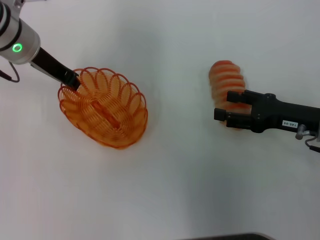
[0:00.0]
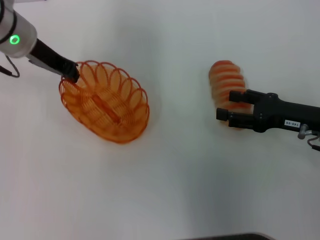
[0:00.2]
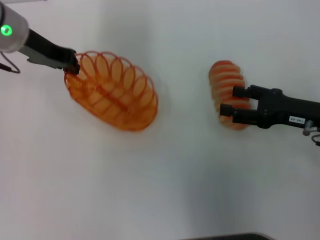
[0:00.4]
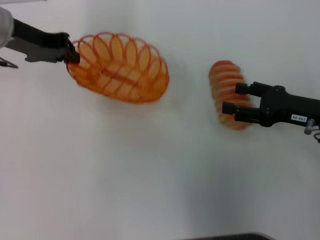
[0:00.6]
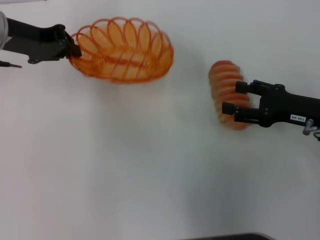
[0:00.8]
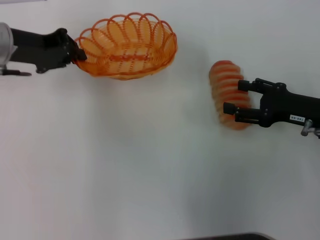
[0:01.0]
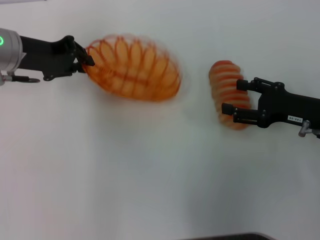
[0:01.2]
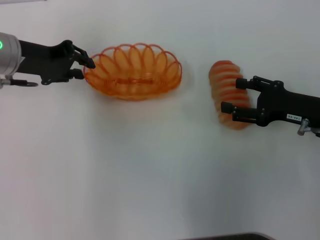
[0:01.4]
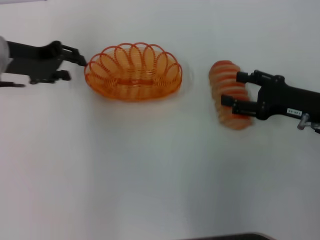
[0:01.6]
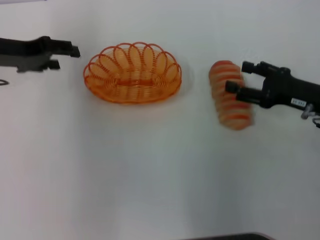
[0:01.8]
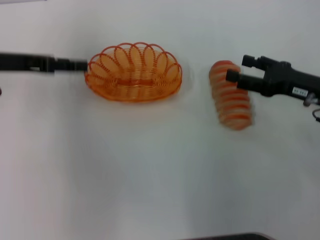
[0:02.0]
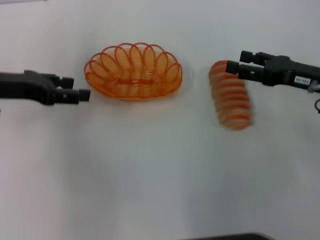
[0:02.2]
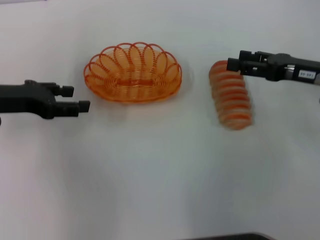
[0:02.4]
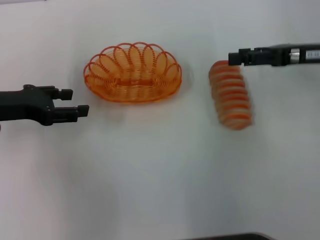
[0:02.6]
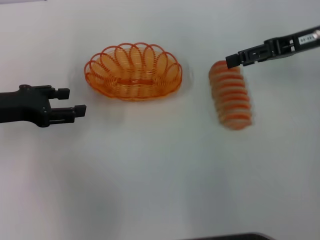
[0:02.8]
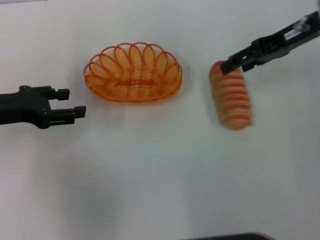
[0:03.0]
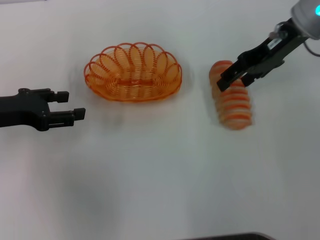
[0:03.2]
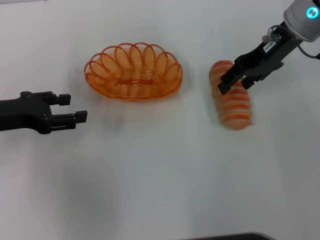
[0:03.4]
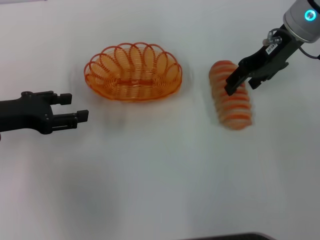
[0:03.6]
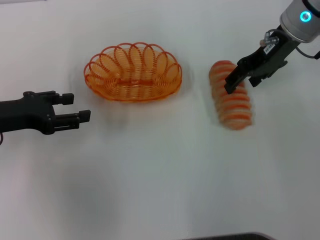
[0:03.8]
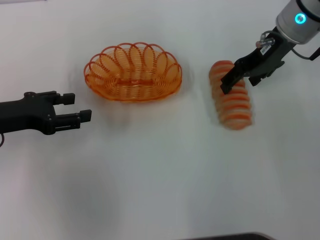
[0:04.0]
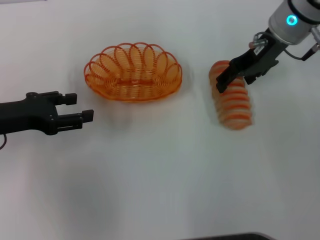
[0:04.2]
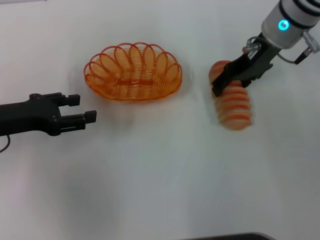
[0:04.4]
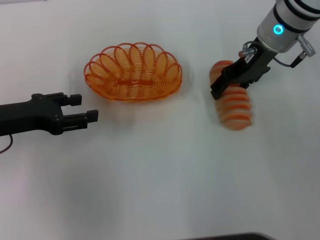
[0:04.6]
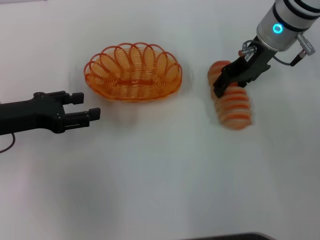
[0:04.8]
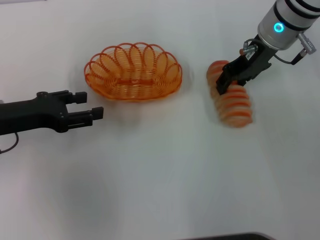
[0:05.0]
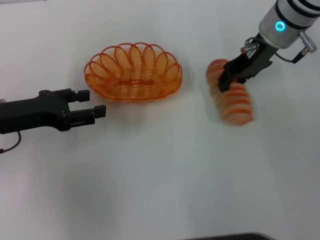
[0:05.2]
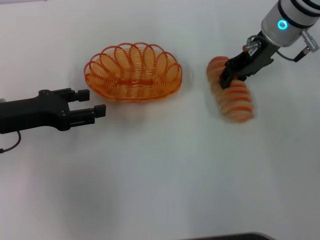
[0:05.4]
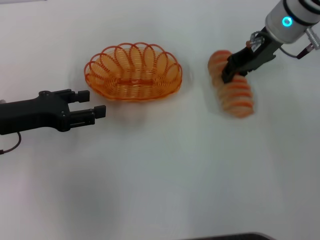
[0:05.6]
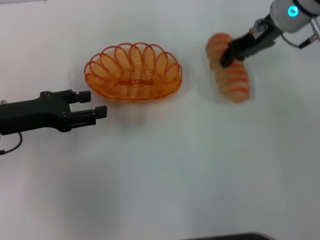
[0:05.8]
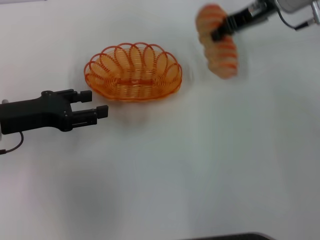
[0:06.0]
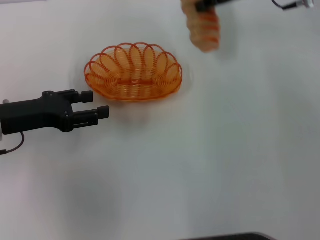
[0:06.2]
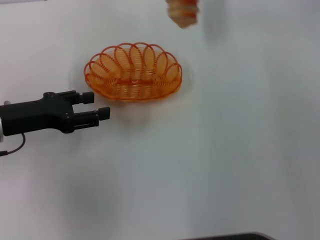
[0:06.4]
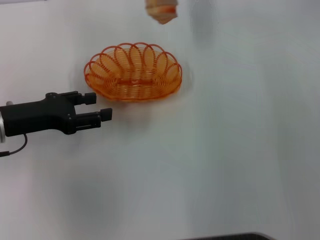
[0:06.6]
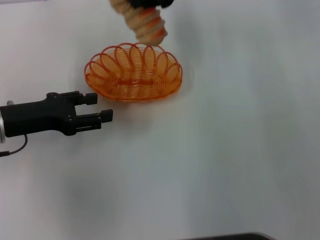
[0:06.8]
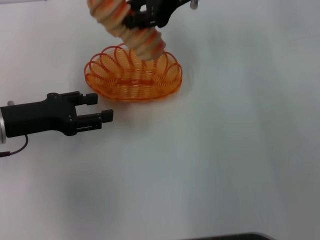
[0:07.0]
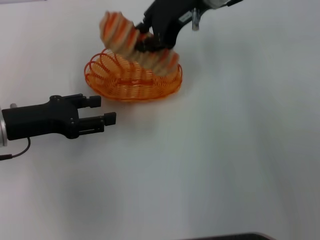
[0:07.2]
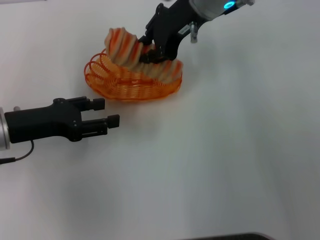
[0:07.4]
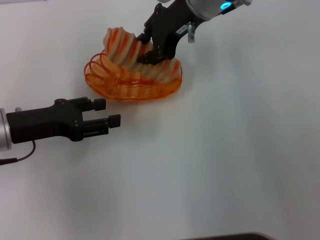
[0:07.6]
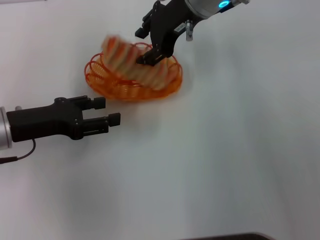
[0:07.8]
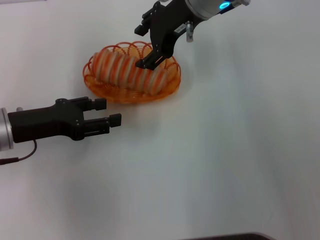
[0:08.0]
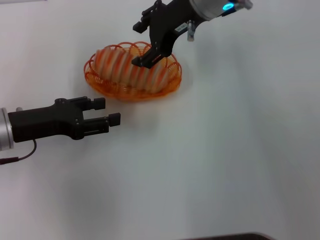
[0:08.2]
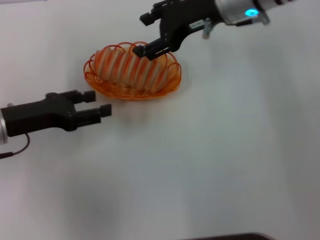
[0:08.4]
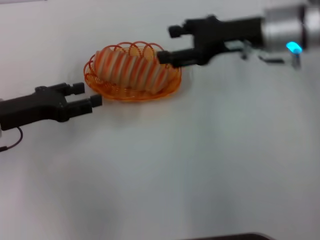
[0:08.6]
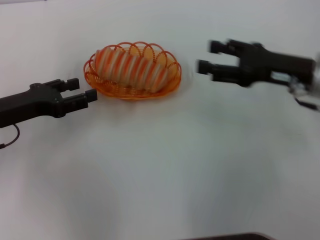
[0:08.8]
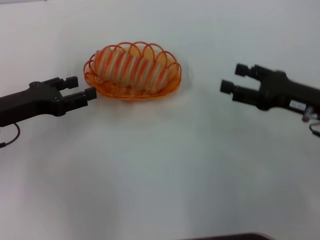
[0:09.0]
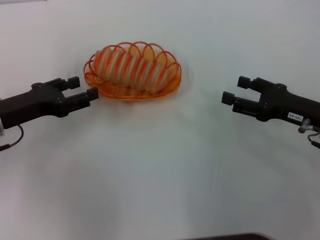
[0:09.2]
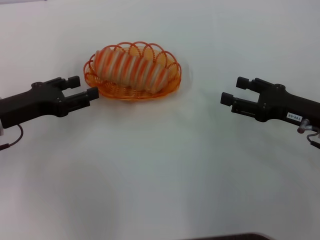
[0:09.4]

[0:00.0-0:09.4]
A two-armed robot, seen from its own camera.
Step, 0:00.8 to 0:01.6: Place the basket in the center of view with the left gripper.
Step, 0:01.8 to 0:05.8: Pick up the long bread with the right gripper.
Step, 0:06.0 to 0:08.4: Place the long bread into the basket with the right gripper.
0:00.0 to 0:01.6: The left gripper moves to the left, roughly 5 cm.
0:01.6 to 0:03.2: The right gripper travels upward, forward and to the left by roughly 20 cm; the left gripper heads backward, covering approximately 10 cm, and opens its fingers.
0:03.2 to 0:04.8: The right gripper moves roughly 5 cm.
0:04.8 to 0:06.2: The right gripper goes about 5 cm upward, and closes its fingers.
0:06.2 to 0:07.8: The right gripper is displaced to the left by roughly 10 cm.
0:07.8 to 0:09.4: The right gripper shifts about 30 cm to the right, backward and downward, and opens up.
